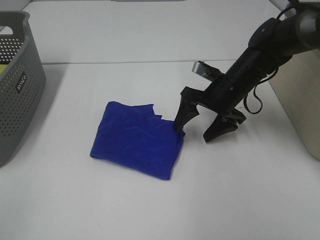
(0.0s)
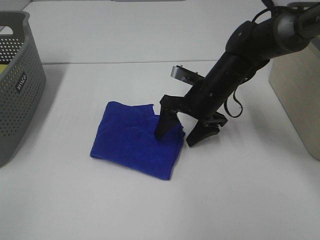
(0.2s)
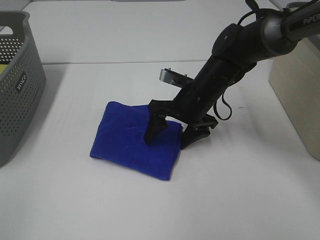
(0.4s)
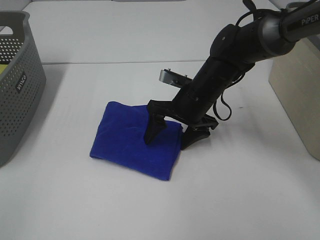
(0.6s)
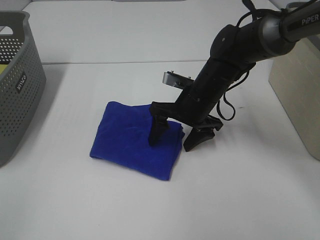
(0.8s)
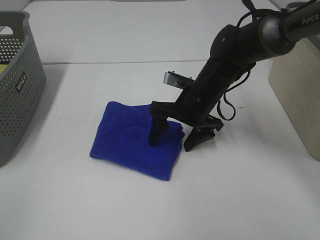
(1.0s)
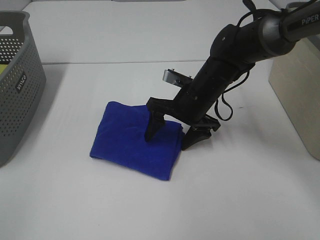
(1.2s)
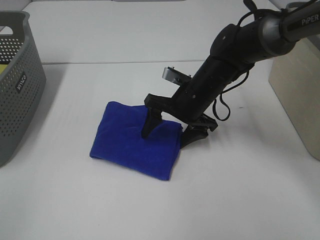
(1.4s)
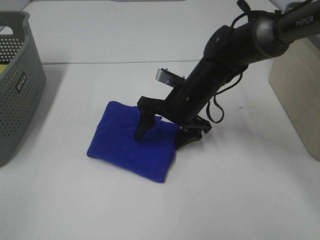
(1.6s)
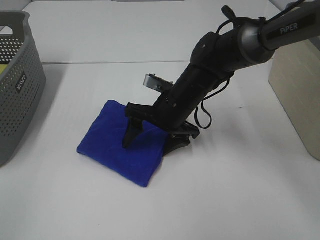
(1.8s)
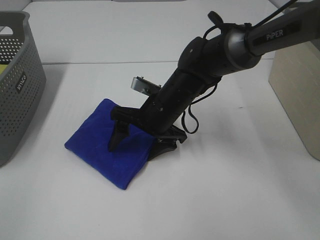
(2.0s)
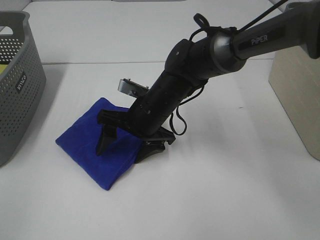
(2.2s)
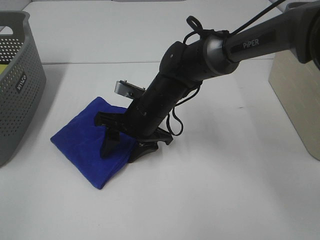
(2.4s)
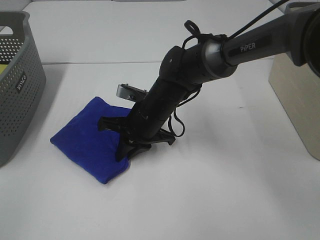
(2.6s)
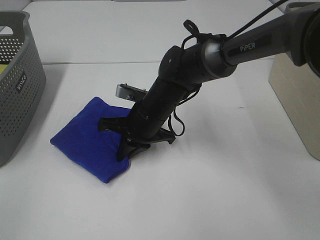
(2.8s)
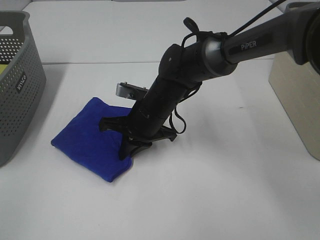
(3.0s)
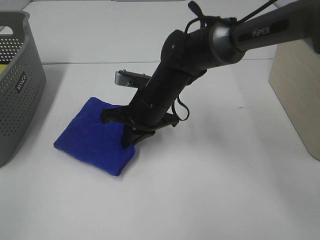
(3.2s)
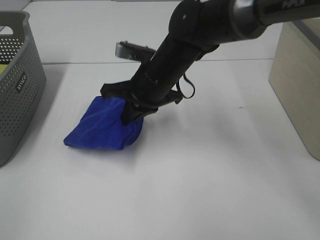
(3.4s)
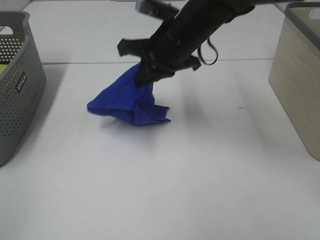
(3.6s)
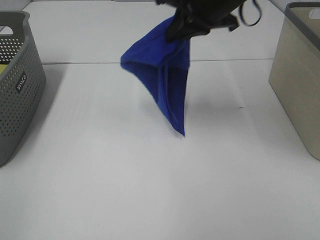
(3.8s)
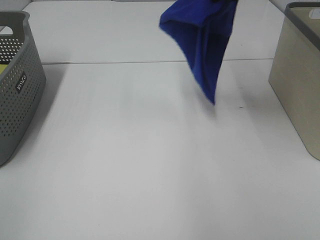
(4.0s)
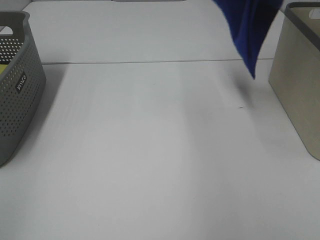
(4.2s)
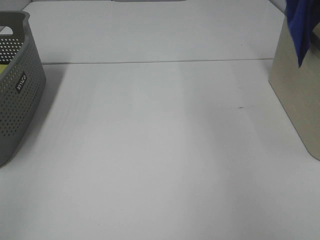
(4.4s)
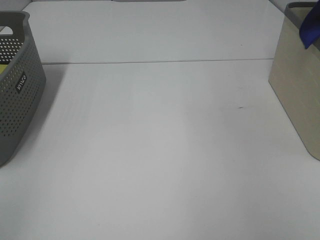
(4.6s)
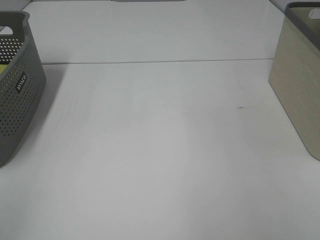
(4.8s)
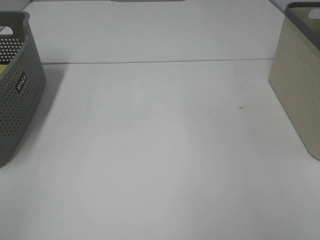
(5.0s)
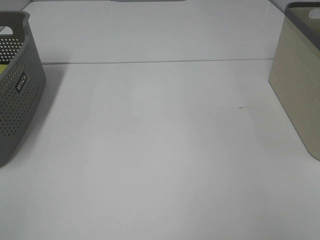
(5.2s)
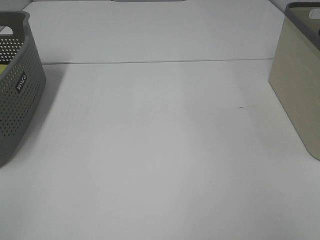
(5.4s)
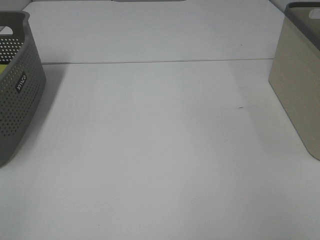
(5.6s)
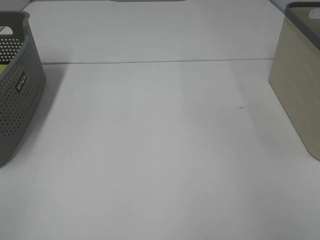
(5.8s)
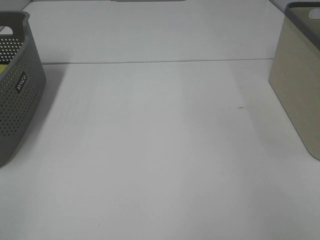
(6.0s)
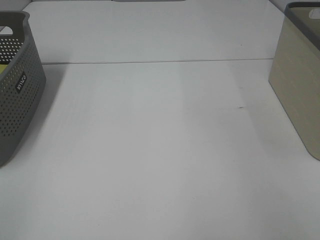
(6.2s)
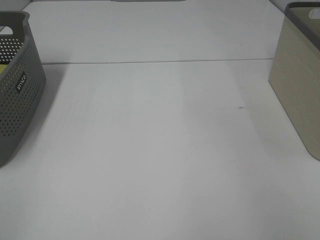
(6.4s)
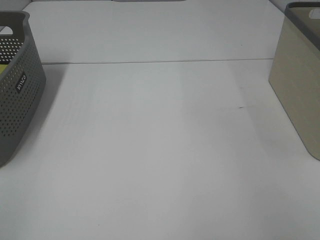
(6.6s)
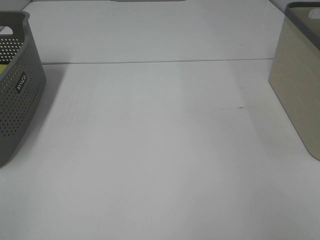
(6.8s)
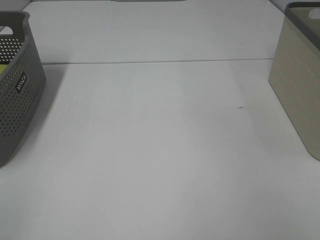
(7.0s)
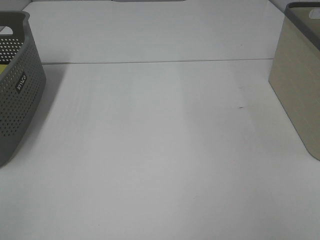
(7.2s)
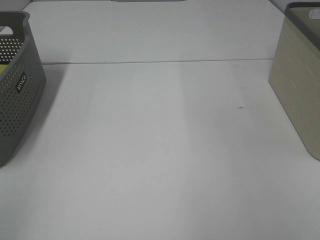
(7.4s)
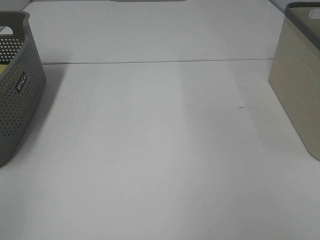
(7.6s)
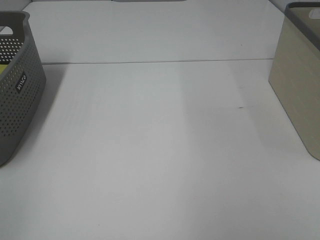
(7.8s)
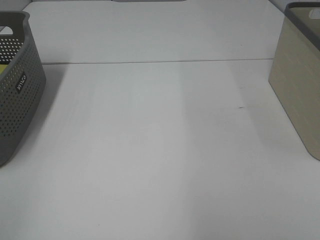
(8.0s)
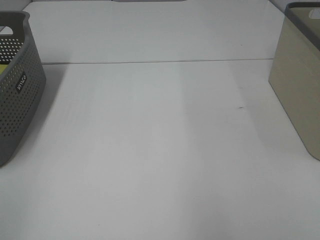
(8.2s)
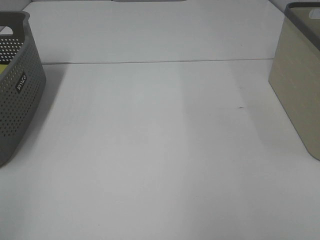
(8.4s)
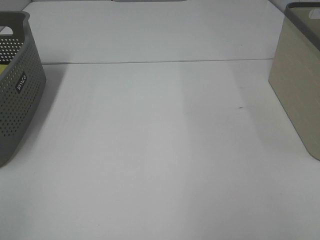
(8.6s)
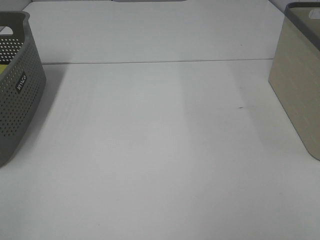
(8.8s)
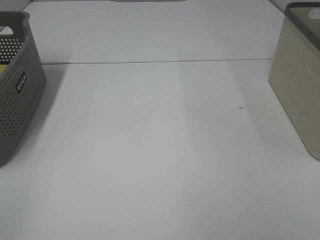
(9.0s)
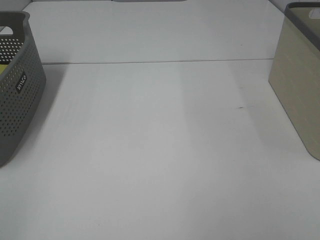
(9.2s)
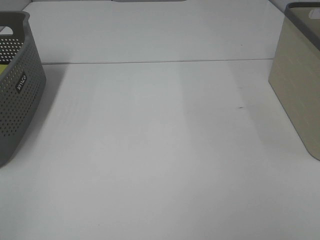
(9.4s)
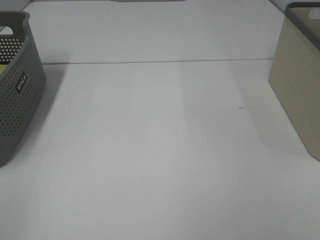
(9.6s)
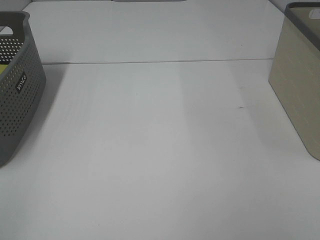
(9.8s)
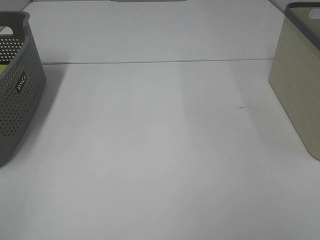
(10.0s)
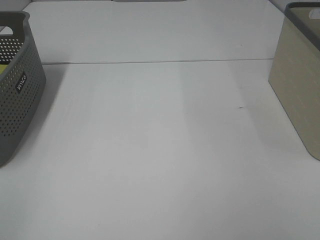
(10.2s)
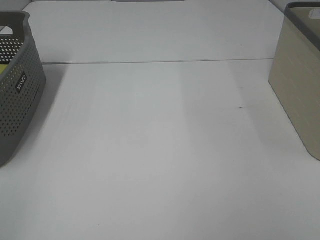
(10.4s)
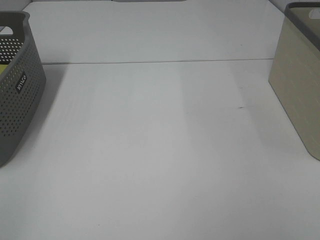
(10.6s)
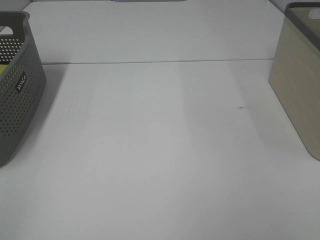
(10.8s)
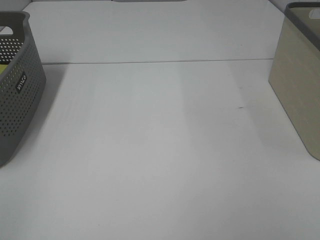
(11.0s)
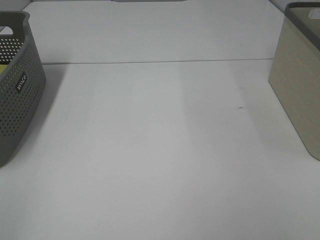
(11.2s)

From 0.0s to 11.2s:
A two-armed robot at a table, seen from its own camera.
Step, from 0.0s to 3.0s: Right hand: grab the folded blue towel.
Step, from 3.2s to 7.0s: Right hand: place the blue towel in right basket.
From 0.0s to 1.6s: The right gripper heads to the left, covering some 10 cm.
From 1.6s to 3.2s: The right gripper shifts some 5 cm to the left, and closes up.
From 3.2s to 4.8s: The right gripper moves to the right and upward, about 50 cm.
From 9.6s to 11.2s: The two grippers keep their place.

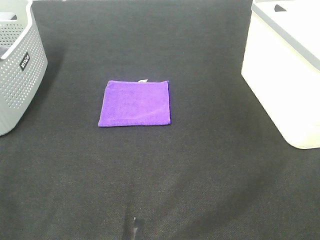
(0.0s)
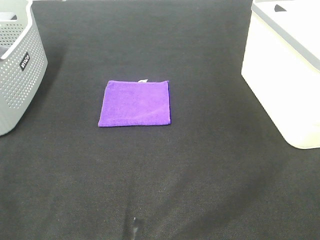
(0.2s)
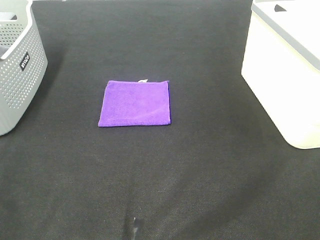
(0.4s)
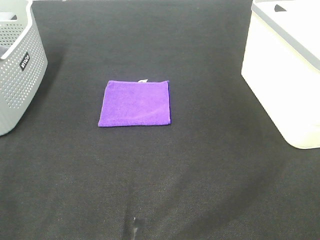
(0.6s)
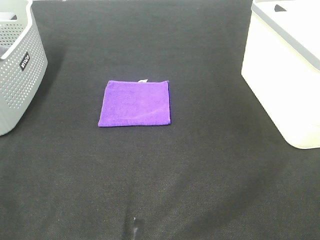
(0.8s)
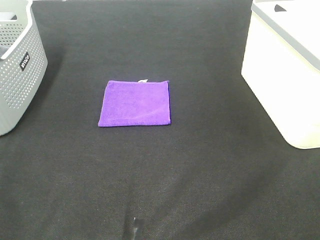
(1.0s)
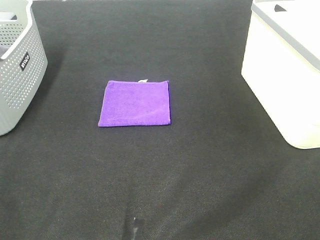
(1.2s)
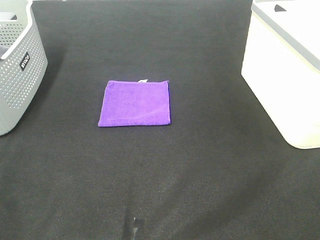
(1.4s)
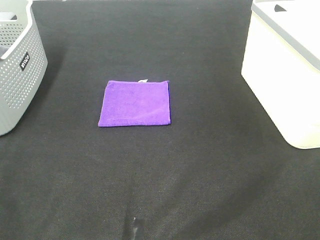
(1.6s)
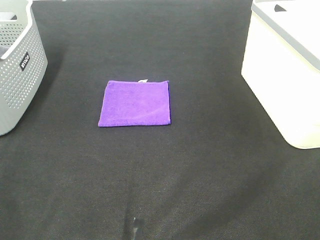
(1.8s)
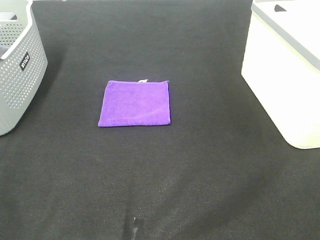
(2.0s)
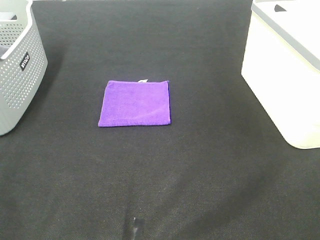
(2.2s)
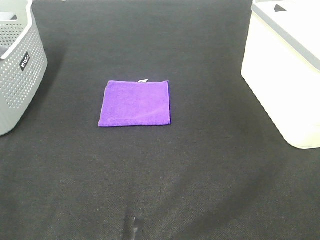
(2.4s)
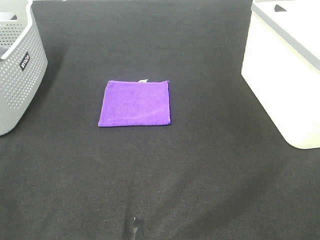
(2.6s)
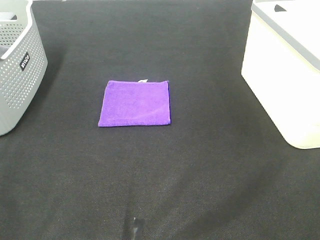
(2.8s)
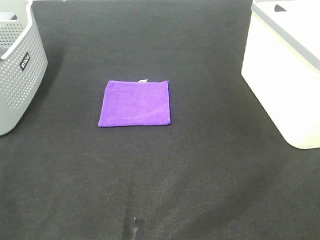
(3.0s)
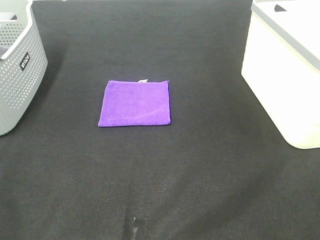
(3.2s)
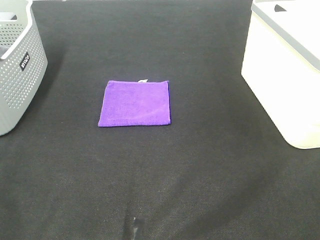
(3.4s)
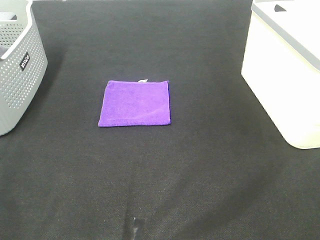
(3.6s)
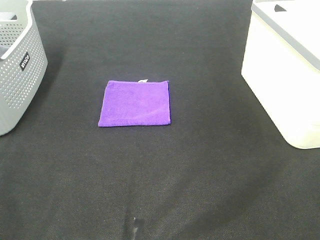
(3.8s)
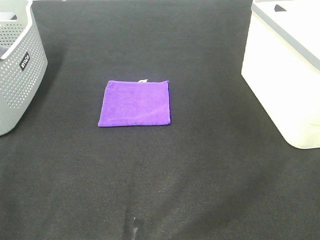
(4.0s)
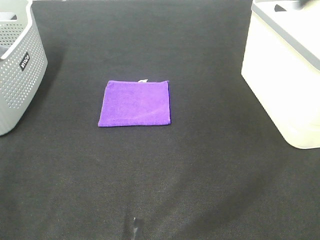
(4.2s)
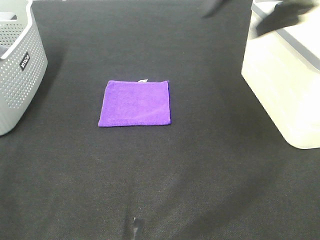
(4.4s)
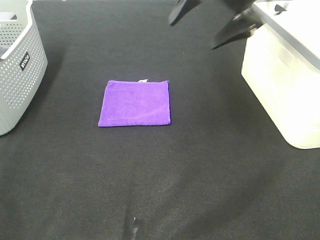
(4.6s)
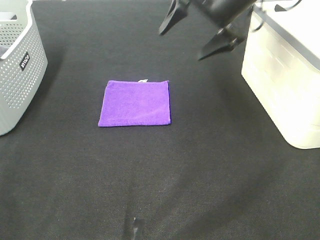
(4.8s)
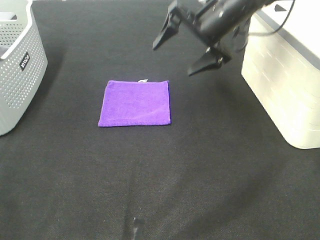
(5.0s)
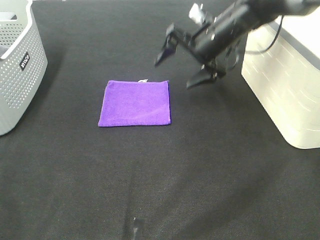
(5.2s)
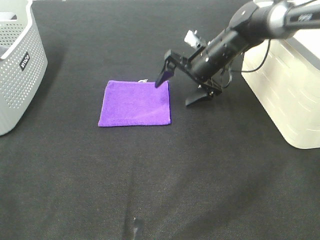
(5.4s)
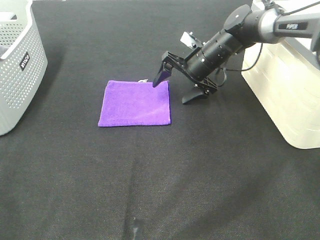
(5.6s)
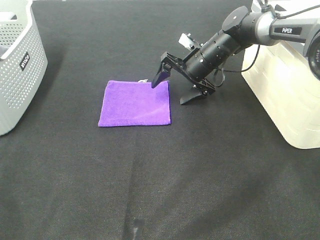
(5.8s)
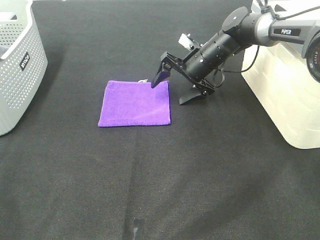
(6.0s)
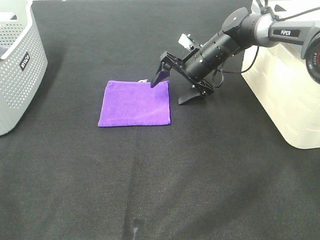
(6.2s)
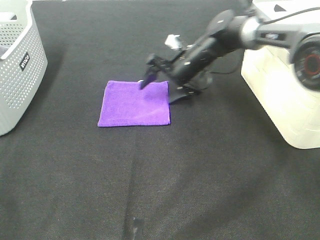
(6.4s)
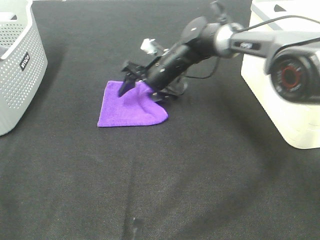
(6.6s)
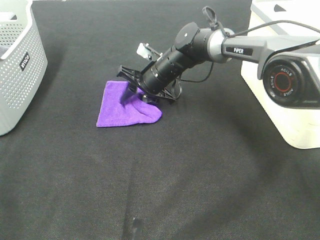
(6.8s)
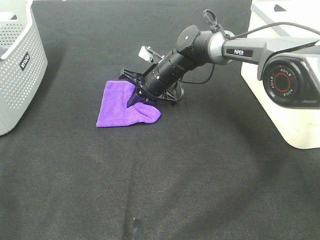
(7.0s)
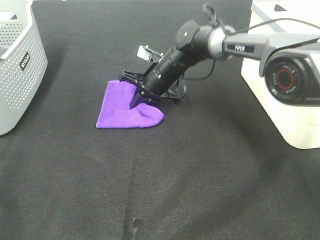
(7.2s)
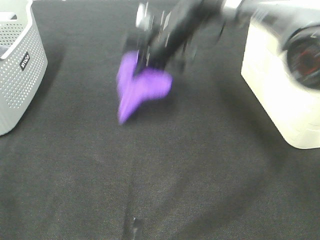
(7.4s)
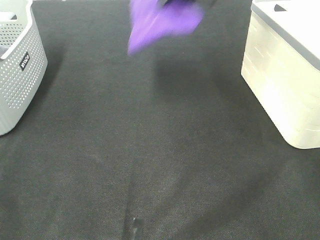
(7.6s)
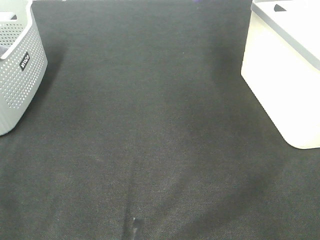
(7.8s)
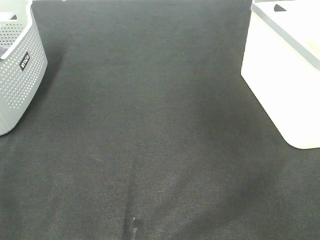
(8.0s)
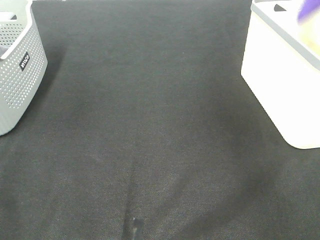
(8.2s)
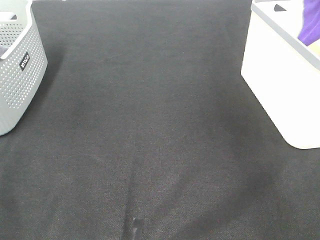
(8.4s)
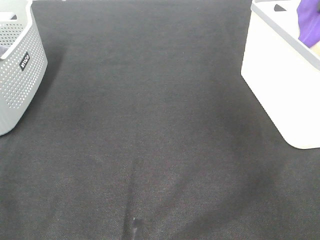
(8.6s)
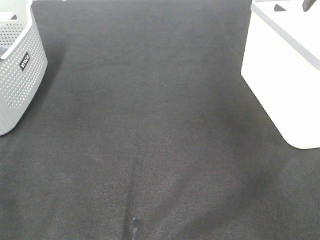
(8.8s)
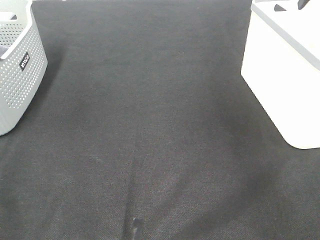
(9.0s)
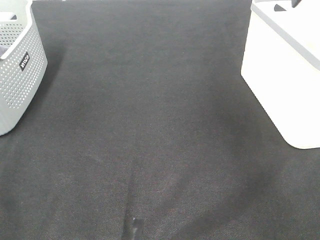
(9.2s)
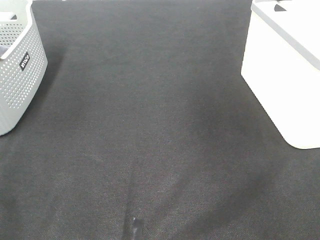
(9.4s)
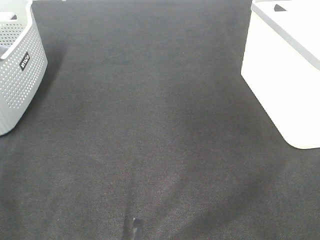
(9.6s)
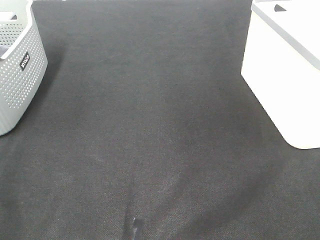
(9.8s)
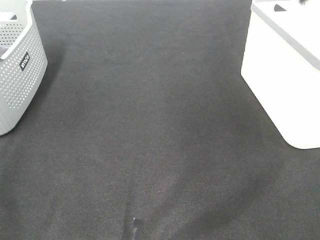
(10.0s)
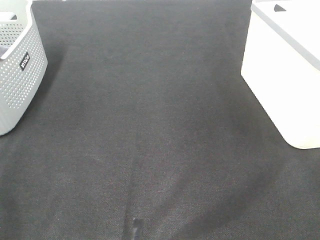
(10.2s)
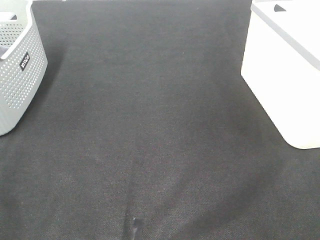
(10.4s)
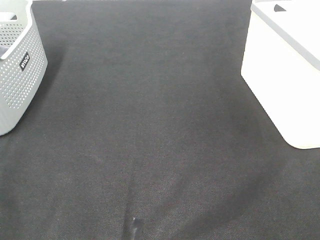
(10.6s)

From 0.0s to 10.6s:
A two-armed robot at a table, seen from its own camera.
Step, from 0.0s to 7.0s: Right hand: grab the folded purple towel.
Step, from 7.2s to 8.8s: Right hand: place the purple towel in right basket.
From 0.0s to 3.0s: The two grippers keep their place.
From 3.0s to 4.6s: The right gripper is displaced forward by some 40 cm.
From 4.6s to 6.0s: The right gripper travels downward and forward by some 20 cm.
From 6.0s to 7.6s: The right gripper goes roughly 25 cm upward, and closes up.
From 7.6s to 9.0s: The right gripper heads to the right, covering some 25 cm, and opens.

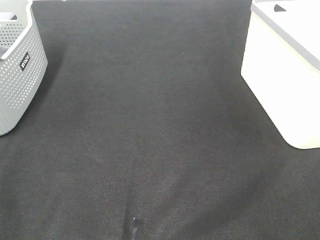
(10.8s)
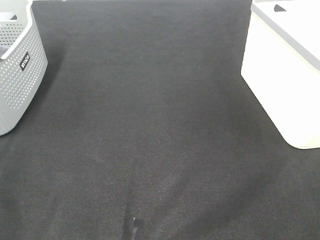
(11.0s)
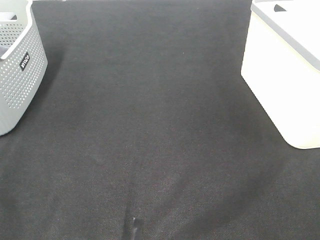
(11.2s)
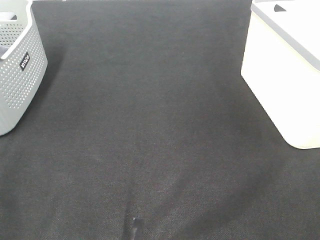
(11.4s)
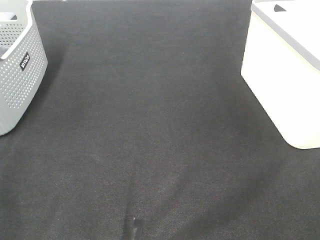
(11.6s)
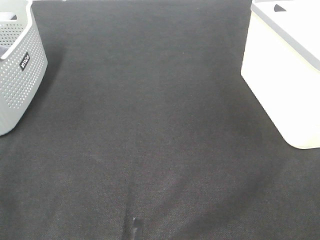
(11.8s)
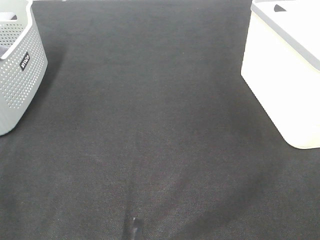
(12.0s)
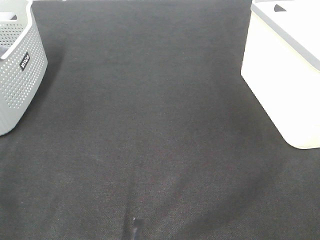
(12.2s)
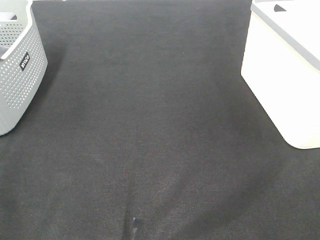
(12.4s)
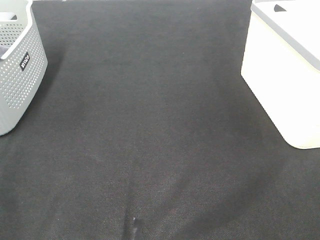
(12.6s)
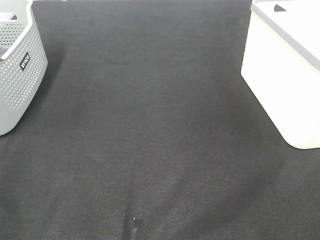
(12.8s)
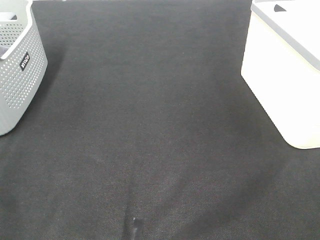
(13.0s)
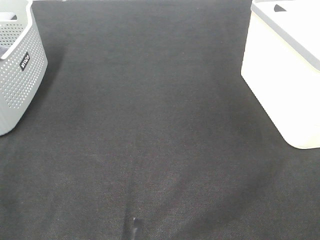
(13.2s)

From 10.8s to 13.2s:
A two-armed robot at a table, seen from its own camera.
From 12.0s to 13.2s: The two grippers keep their place.
